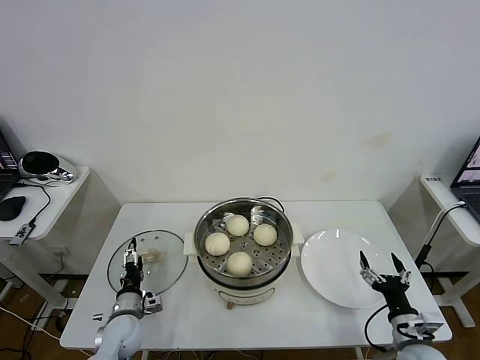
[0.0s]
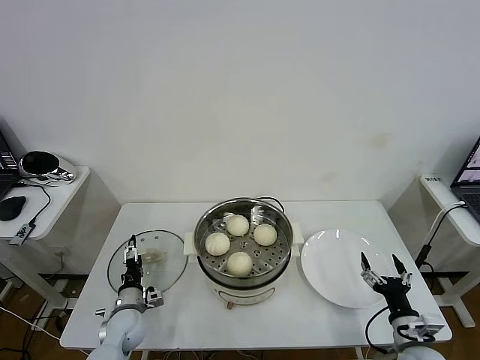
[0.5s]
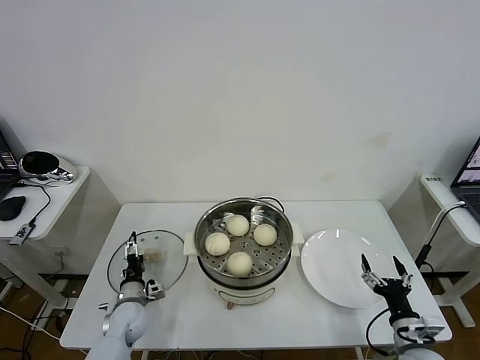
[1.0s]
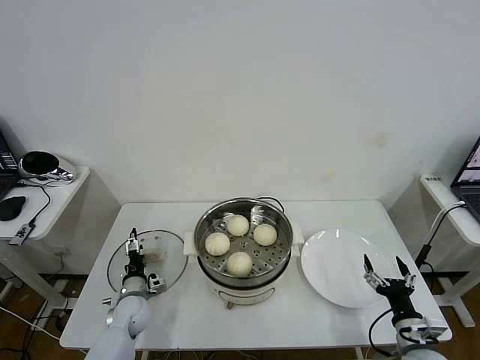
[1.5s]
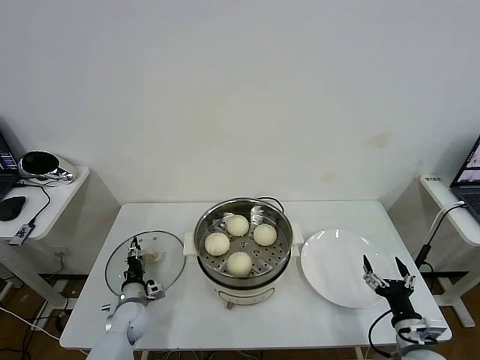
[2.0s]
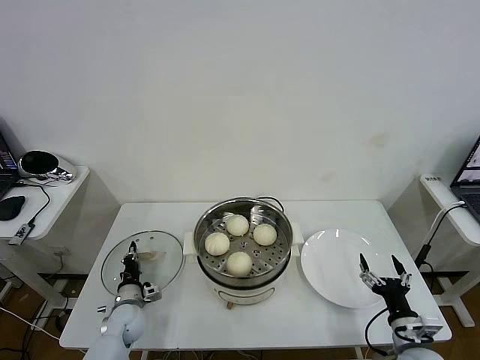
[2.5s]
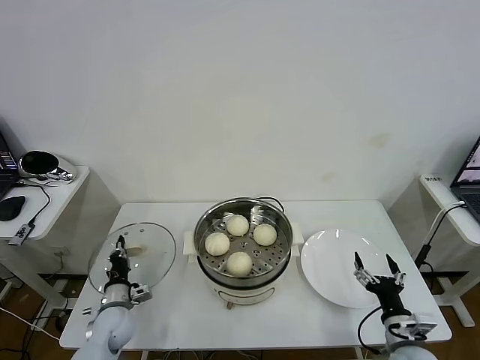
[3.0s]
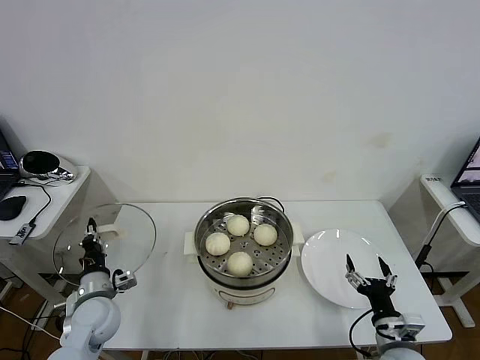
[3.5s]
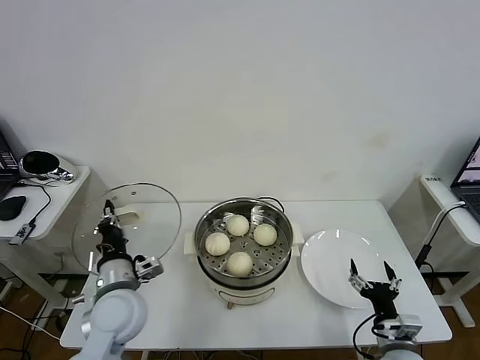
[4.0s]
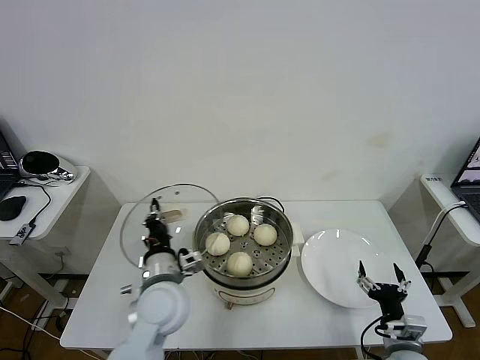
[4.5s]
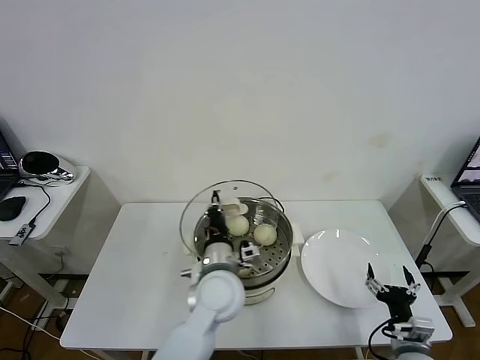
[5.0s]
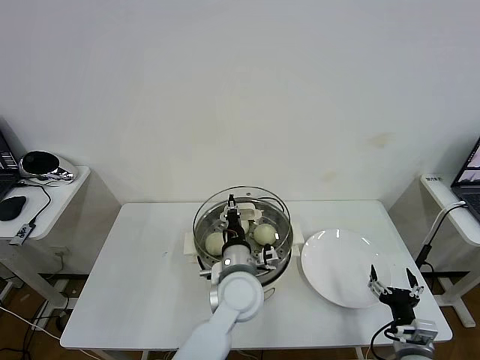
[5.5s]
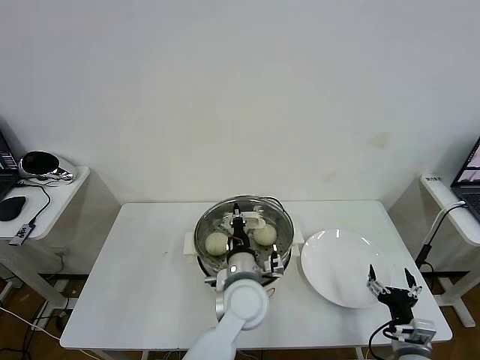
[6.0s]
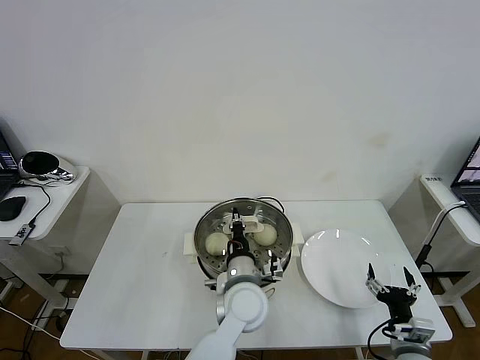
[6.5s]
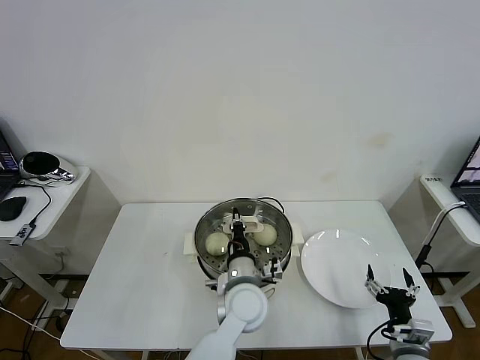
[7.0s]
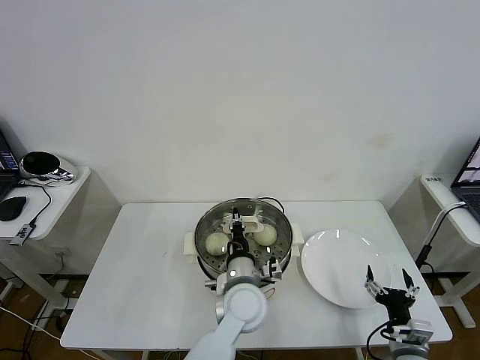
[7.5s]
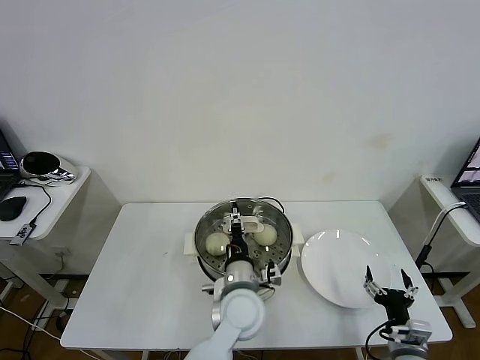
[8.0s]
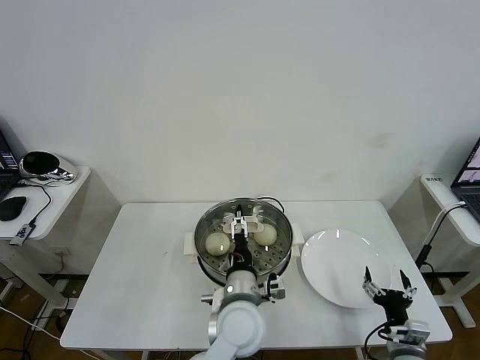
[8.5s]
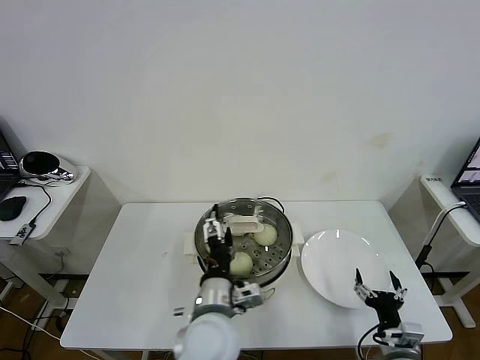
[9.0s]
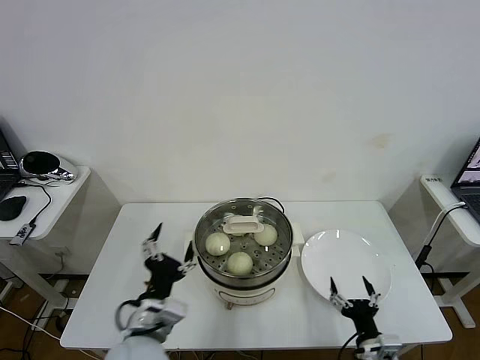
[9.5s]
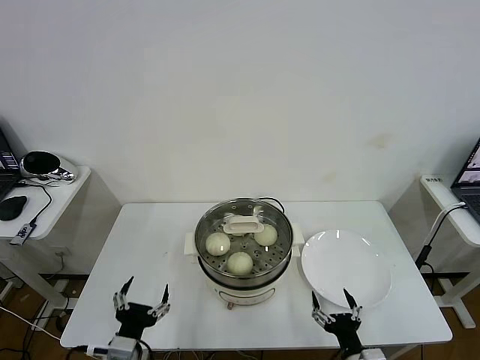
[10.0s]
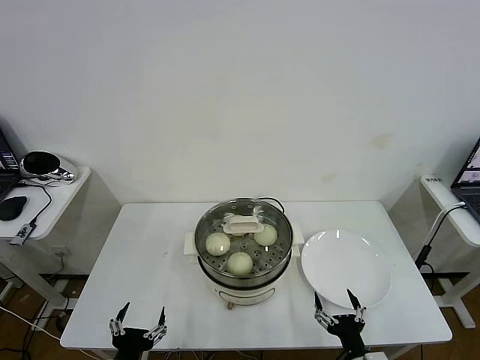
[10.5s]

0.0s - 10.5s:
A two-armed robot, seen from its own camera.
Task of the whole recording: take steamed baozi put them in steamer then cover it.
Step, 0.0s - 2.0s: Grasp the pot lid with left gripper.
Step, 2.5s - 8.0s: Place the pot lid on the steamer with left gripper.
0.0s - 2.0s: The left gripper changes place by some 5 cm, and closes its fingers.
2.0s - 4.0s: The left gripper moves upward, approximately 25 cm, and closes its fingers.
4.0s - 6.5s: The left gripper goes roughly 25 cm to the right.
6.5s - 8.5s: The left gripper opens.
8.5s - 10.5s: The right gripper is displaced to the left and backward by roughly 10 cm. Meanwhile the left gripper goes approximately 30 cm to the left and backward.

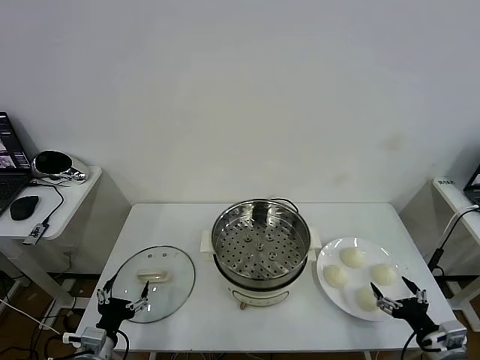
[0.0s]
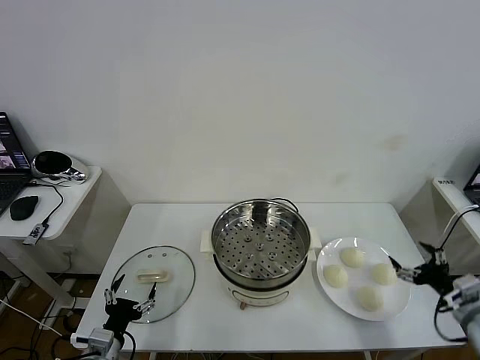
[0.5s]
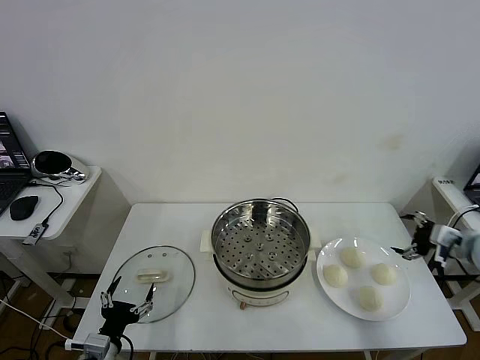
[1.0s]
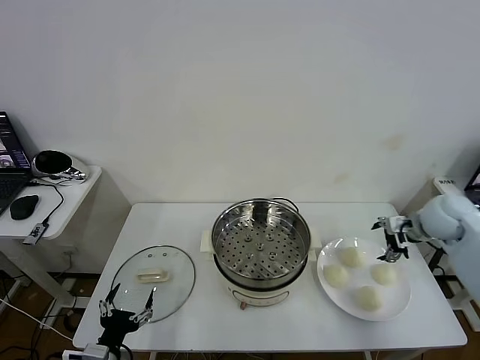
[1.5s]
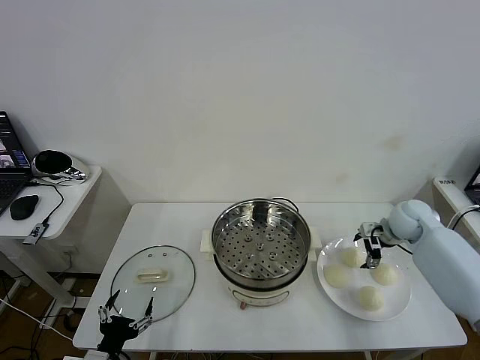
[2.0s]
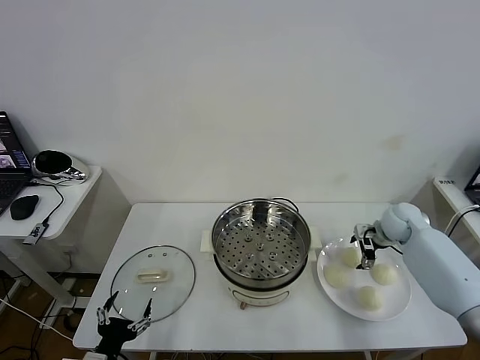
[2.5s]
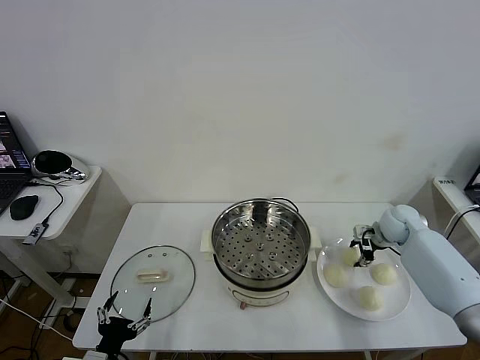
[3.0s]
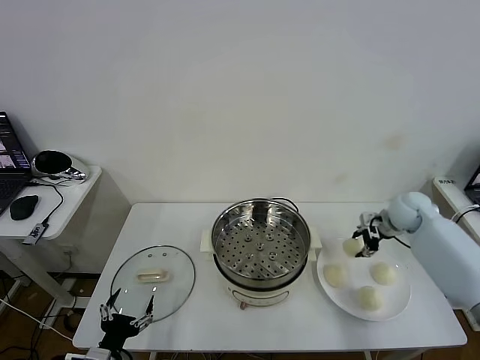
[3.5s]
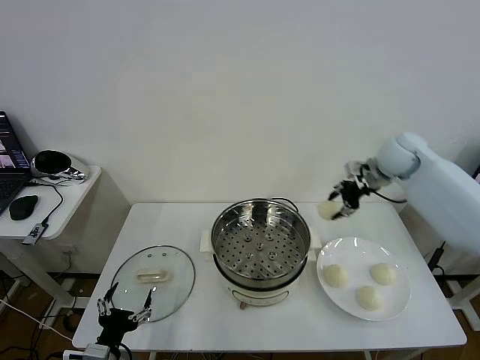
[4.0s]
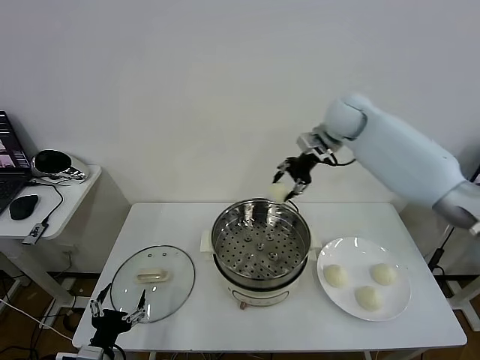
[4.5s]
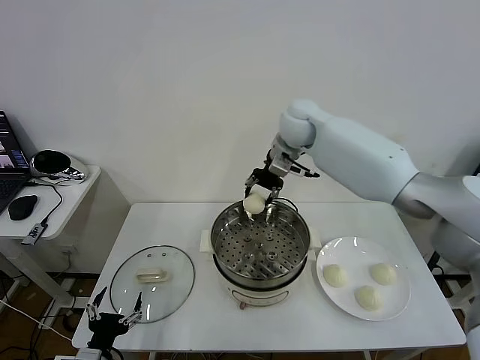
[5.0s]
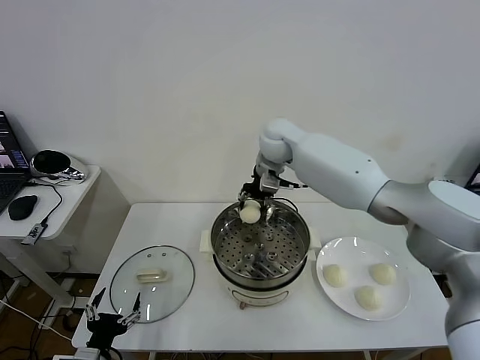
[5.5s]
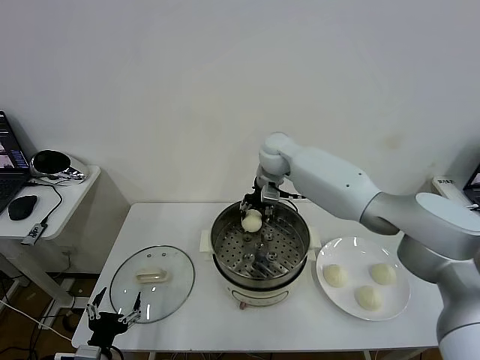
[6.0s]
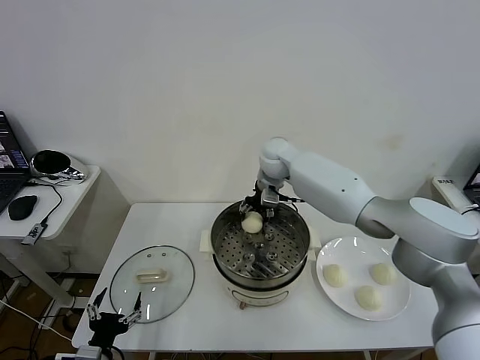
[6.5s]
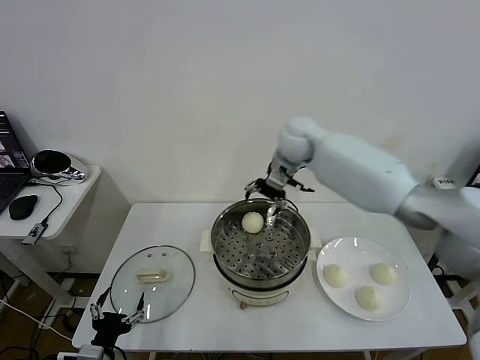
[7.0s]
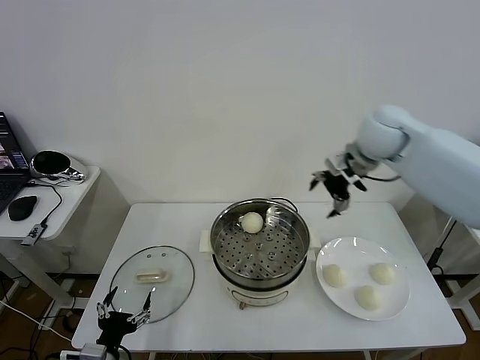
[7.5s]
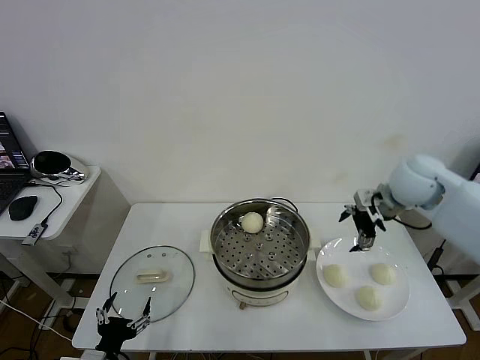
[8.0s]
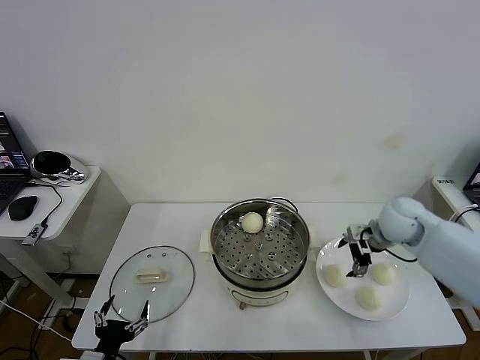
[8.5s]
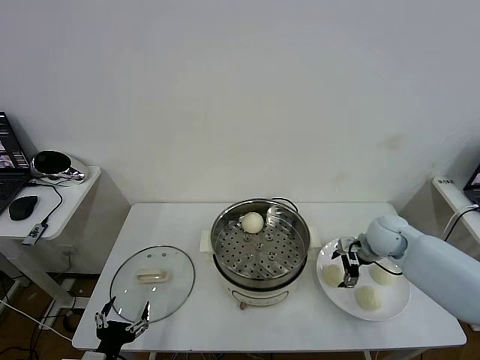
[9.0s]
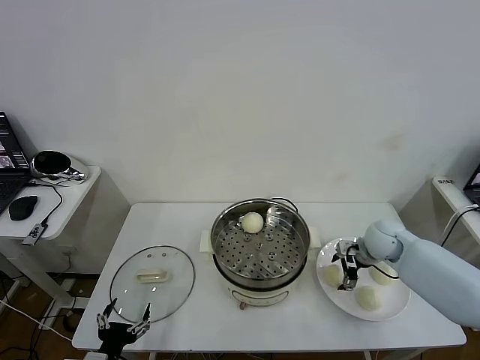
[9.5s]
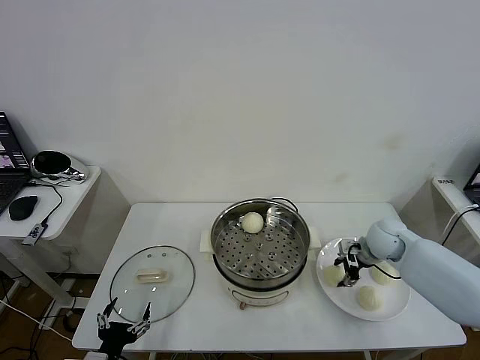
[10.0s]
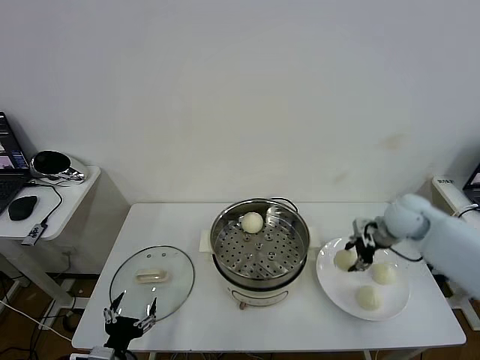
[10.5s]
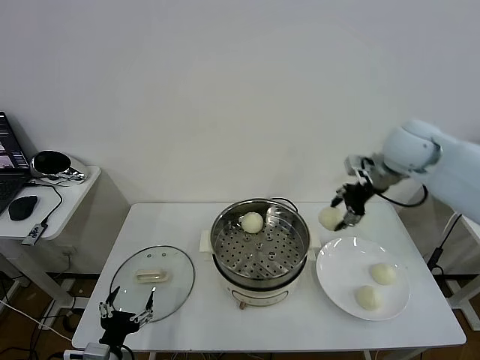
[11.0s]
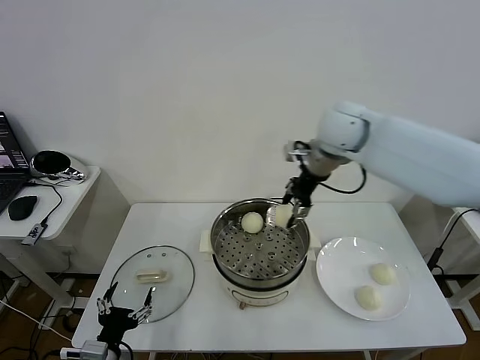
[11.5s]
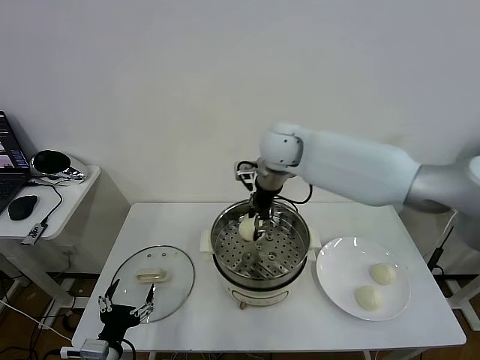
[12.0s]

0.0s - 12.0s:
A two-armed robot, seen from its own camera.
Task of the whole recording: take steamed baozi put them in steamer then cover it.
Step, 0.0s - 3.0s: Grasp the baozi in the plate with right gripper.
Step, 3.5s - 6.5s: Place the baozi on the steamer with right gripper.
Step, 7.0s - 10.0s: Grasp the baozi in the plate with right gripper.
2.0s - 4.0s: The right gripper moves upward and to the left, roughly 20 cm, and closes.
4.0s - 6.0s: The right gripper moves to the left, about 25 cm.
6.0s - 8.0s: The right gripper goes about 30 cm to the right and backward, and opens its fingers.
8.0s - 10.0s: The right gripper is displaced downward by roughly 15 cm, and closes up.
10.0s - 12.0s: The right gripper heads to the left and upward, covering some 35 cm.

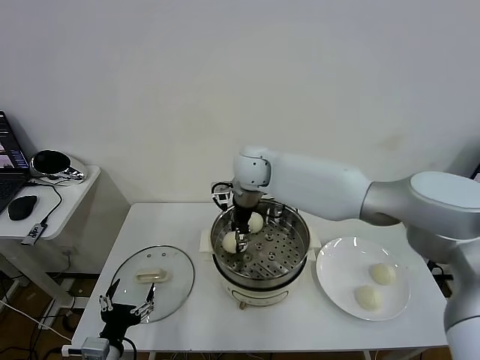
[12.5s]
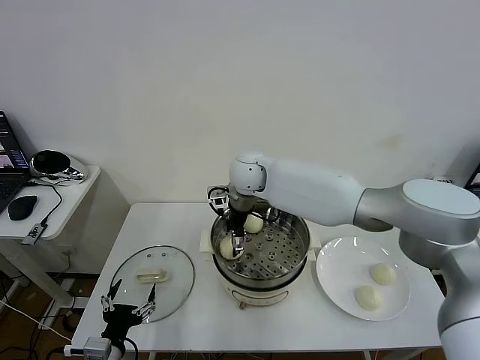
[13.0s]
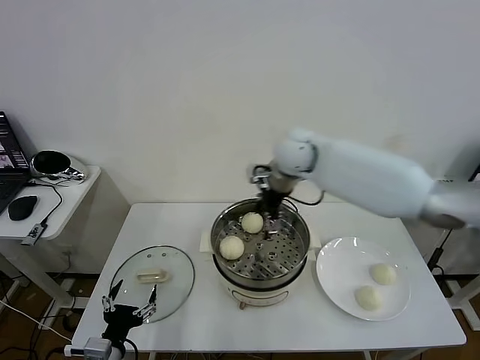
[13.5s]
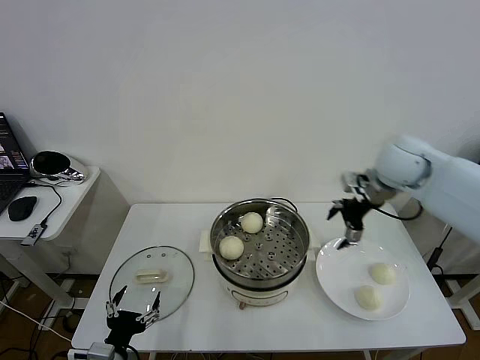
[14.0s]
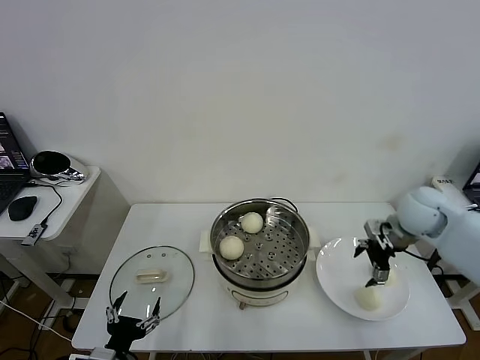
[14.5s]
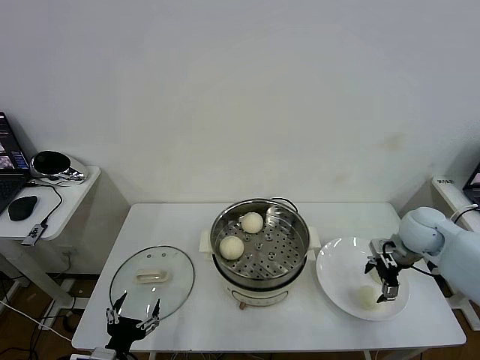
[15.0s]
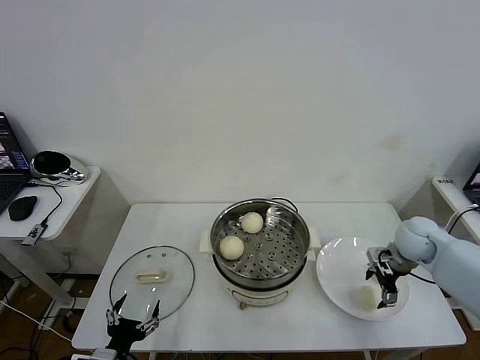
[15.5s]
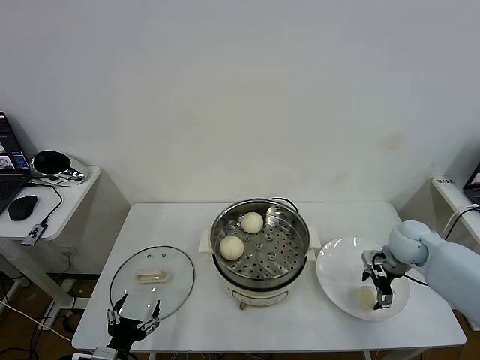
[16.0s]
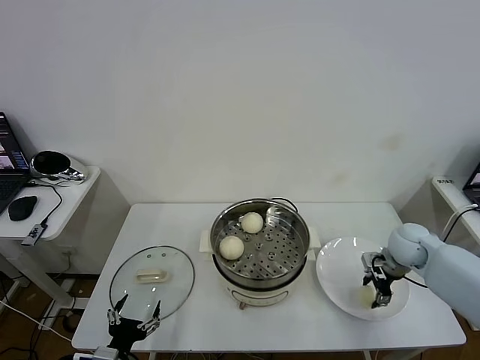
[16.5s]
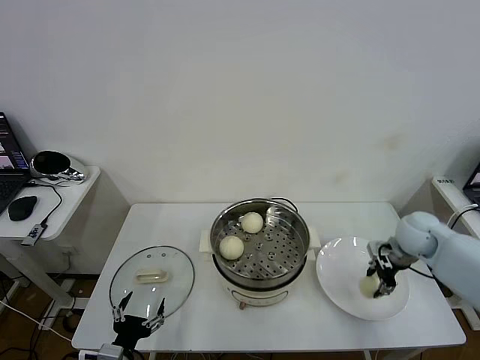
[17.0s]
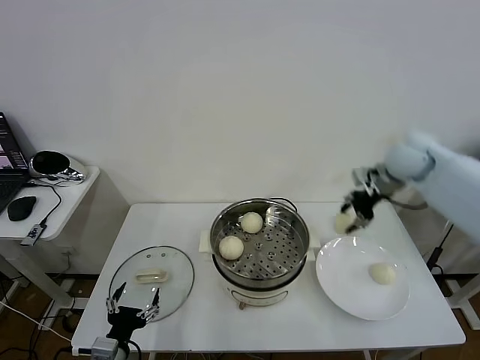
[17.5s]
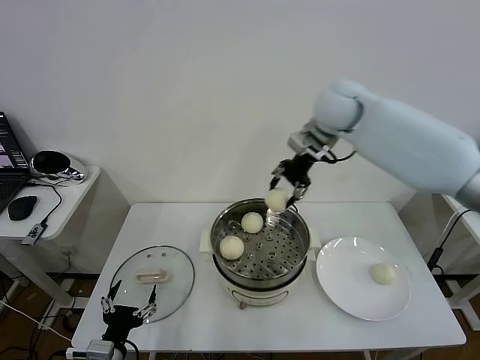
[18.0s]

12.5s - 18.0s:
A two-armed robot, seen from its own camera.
Task of the whole recording: take steamed baozi put them in steamer then cover it.
Step, 13.5s - 16.5s: Grasp the baozi in the plate with right gripper.
12.5s - 14.5s: The right gripper travels to the right by about 35 cm, and opens up.
14.5s - 16.0s: The right gripper shifts about 10 cm downward.
16.0s - 18.0s: The right gripper is displaced upward, to the left and forward by some 40 cm, and closes up.
